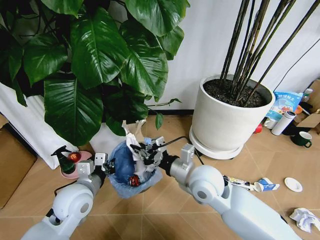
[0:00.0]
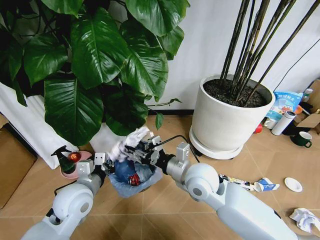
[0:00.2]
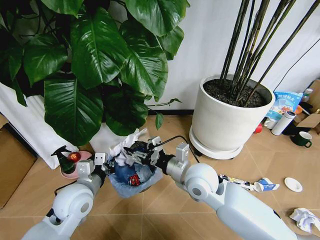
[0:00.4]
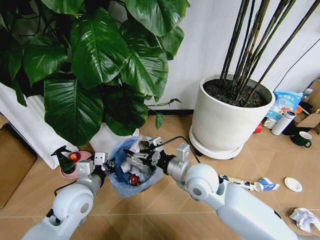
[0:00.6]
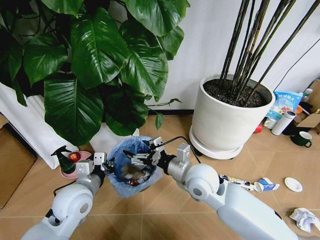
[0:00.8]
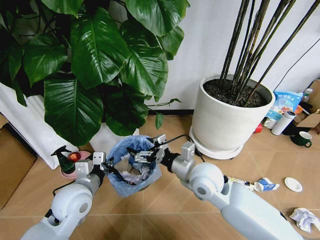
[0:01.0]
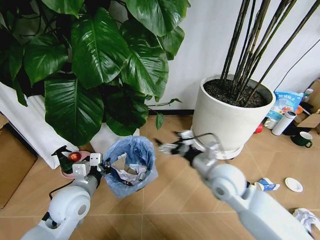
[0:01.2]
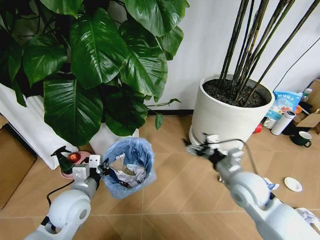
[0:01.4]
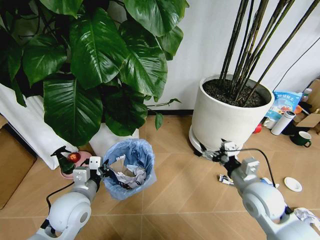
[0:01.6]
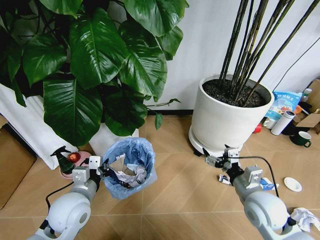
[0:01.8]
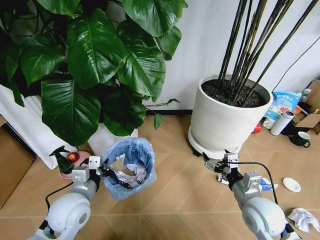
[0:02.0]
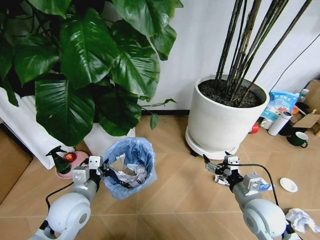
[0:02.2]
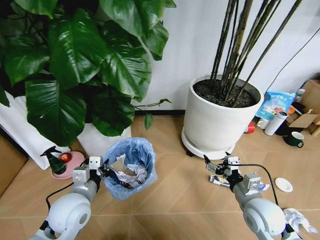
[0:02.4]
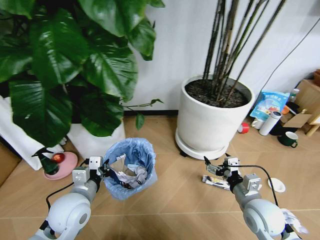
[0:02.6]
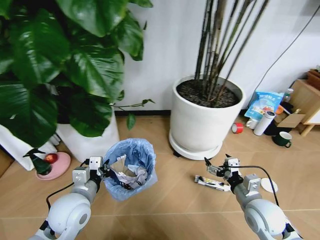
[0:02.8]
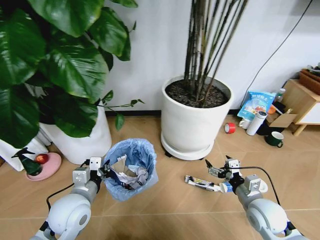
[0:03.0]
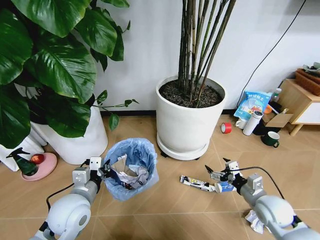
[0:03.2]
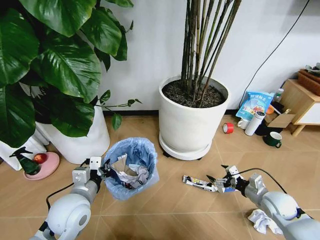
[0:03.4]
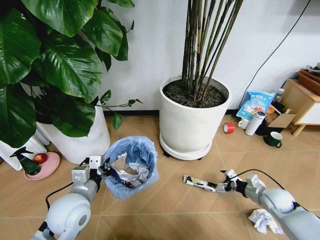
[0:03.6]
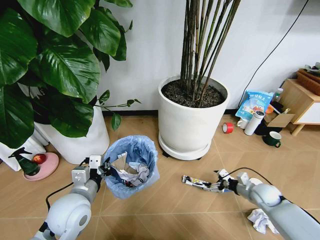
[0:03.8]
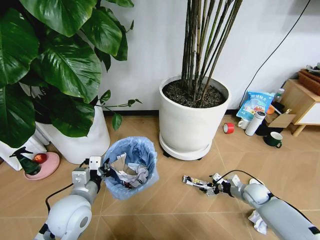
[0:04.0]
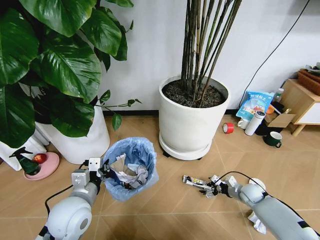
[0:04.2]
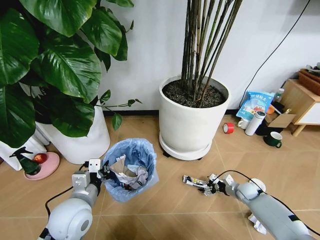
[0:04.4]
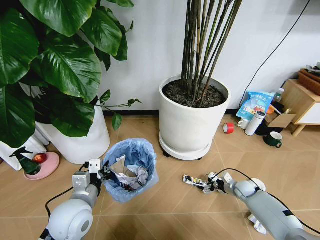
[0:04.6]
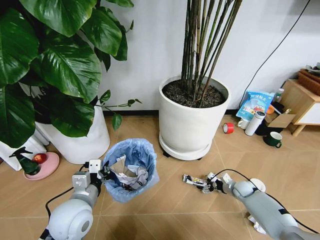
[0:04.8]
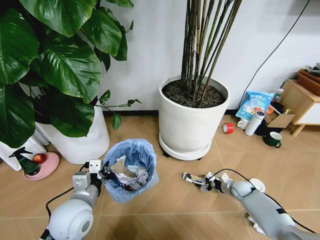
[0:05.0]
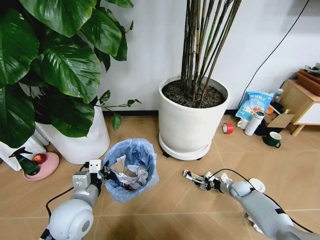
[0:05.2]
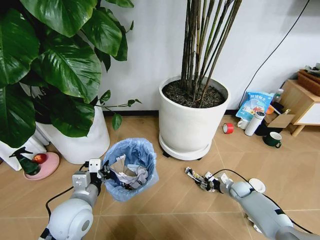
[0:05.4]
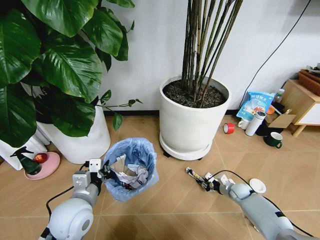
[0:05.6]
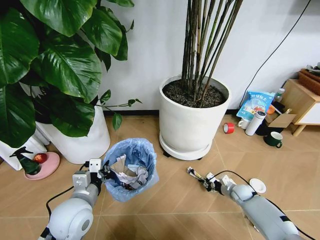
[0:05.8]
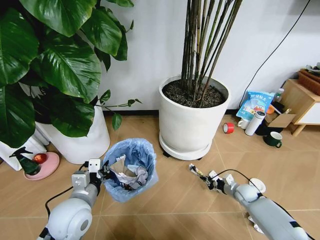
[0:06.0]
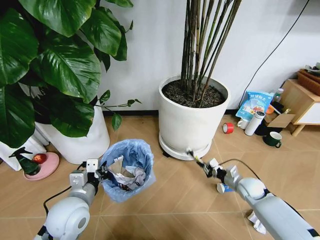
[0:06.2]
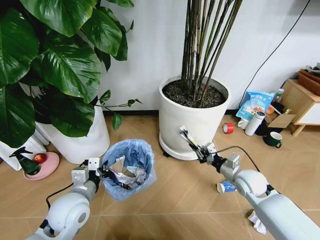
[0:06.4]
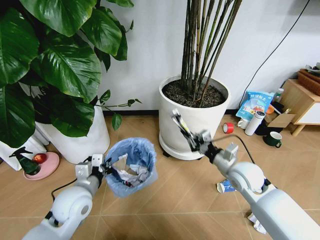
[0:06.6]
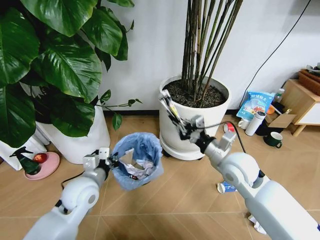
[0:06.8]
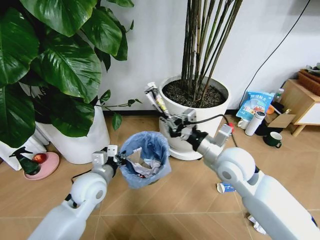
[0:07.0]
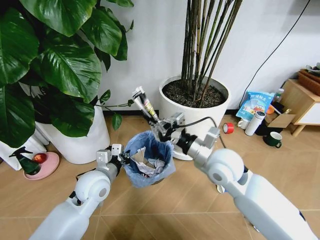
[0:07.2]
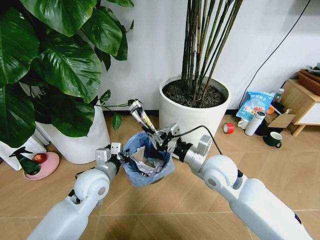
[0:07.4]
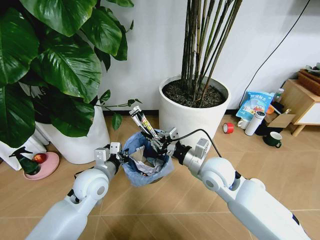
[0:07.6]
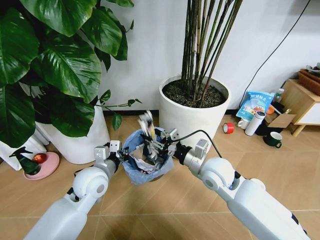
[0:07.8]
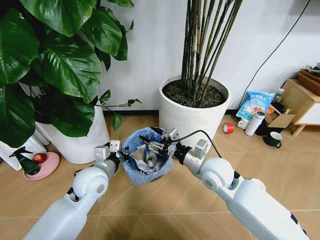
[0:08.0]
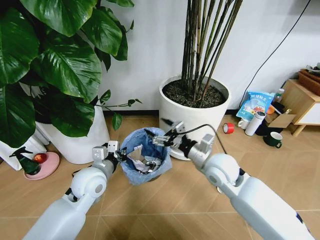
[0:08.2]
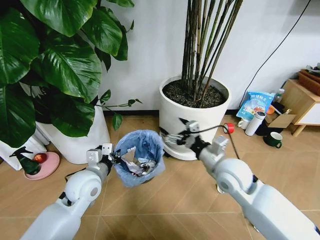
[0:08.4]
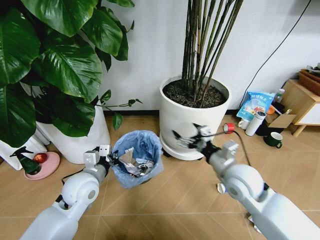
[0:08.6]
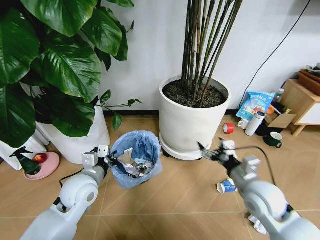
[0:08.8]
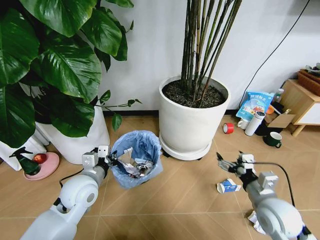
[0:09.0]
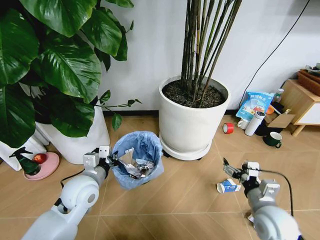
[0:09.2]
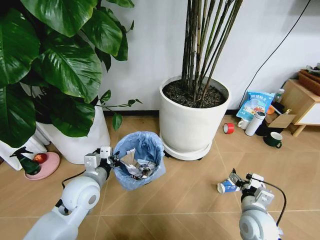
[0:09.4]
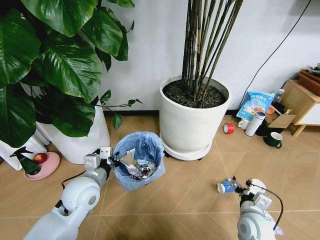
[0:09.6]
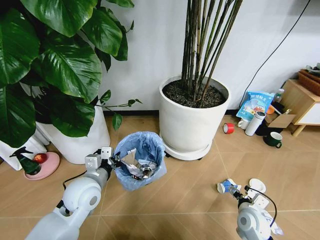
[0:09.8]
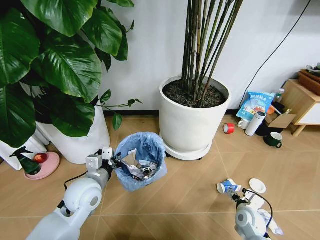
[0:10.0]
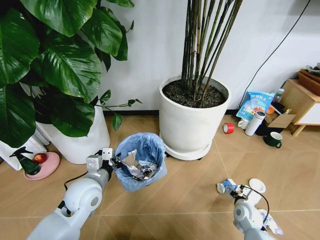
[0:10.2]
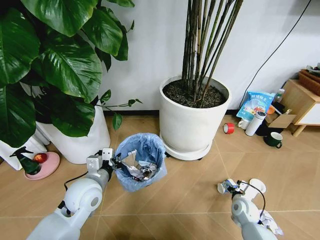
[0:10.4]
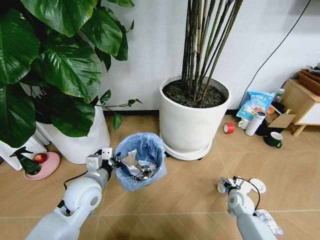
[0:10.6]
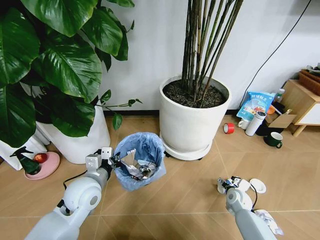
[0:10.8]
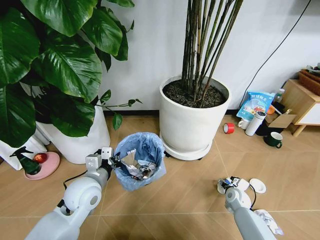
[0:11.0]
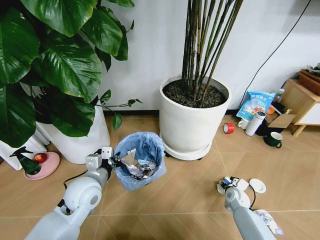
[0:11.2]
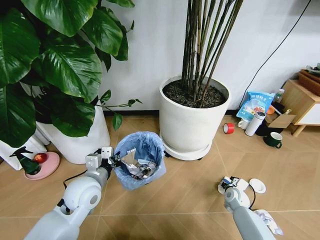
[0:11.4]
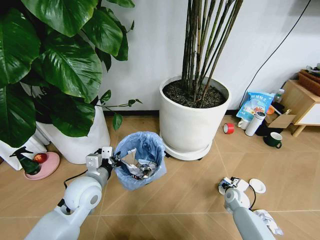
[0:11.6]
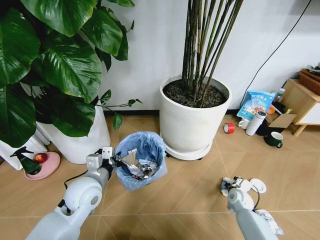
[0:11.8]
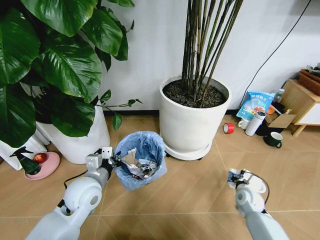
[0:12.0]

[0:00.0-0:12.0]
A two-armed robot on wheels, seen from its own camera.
Task of the whole recording: Pick up the trash bin and place the garbage on the floor into it.
0:00.0 to 0:01.6: The right gripper moves to the right, some 15 cm, and opens its fingers.
0:01.6 to 0:03.0: The right gripper shifts roughly 10 cm downward.
0:03.0 to 0:04.4: The right gripper is displaced downward, forward and to the right by some 25 cm.
0:04.4 to 0:06.0: The right gripper closes its fingers.
0:06.0 to 0:07.6: The left gripper moves forward, roughly 10 cm, while the right gripper heads upward and to the left, covering approximately 35 cm.
0:07.6 to 0:09.0: The right gripper shifts roughly 20 cm to the right and backward, and opens its fingers.
0:09.0 to 0:10.4: The right gripper moves downward, approximately 20 cm.
0:10.4 to 0:12.0: The right gripper ends up about 5 cm from where it was, and closes up.

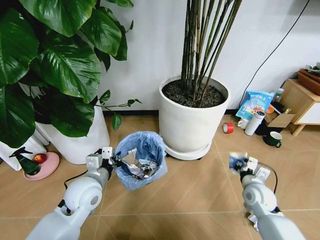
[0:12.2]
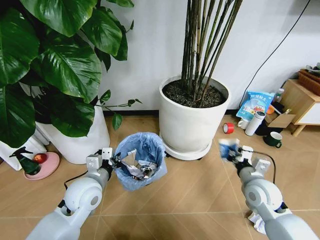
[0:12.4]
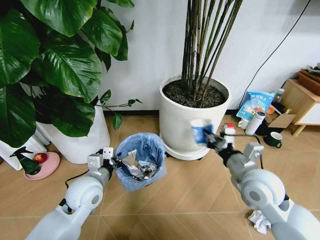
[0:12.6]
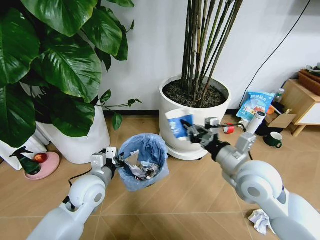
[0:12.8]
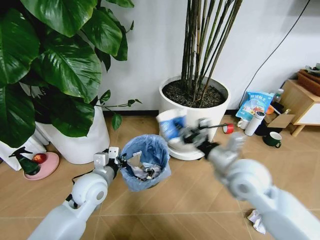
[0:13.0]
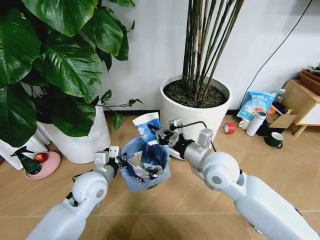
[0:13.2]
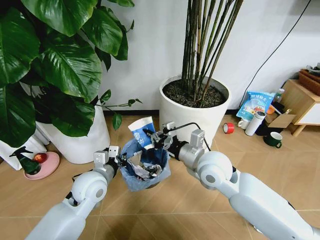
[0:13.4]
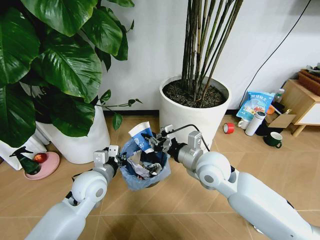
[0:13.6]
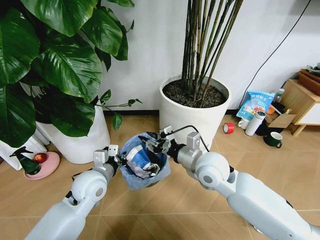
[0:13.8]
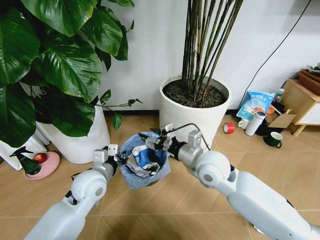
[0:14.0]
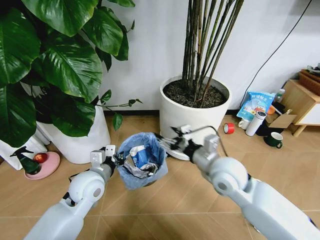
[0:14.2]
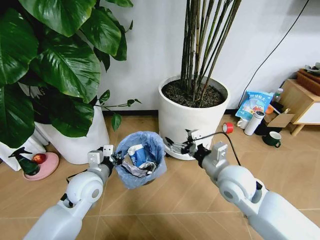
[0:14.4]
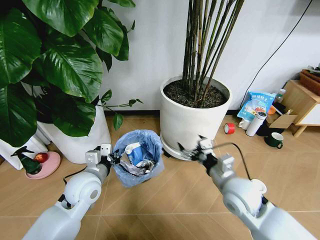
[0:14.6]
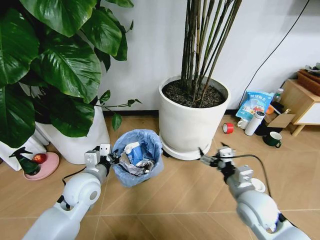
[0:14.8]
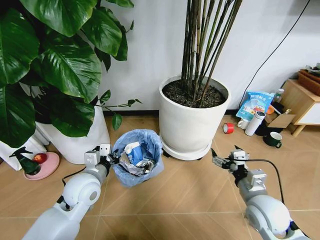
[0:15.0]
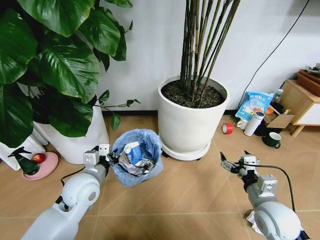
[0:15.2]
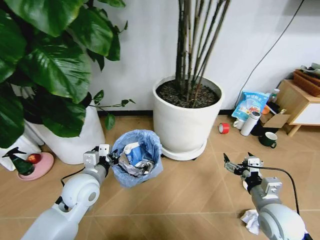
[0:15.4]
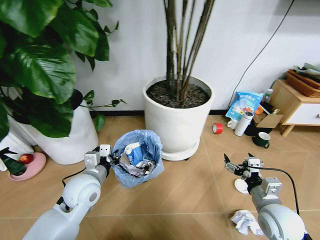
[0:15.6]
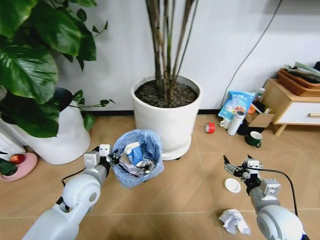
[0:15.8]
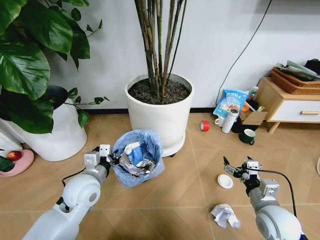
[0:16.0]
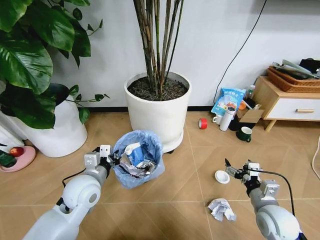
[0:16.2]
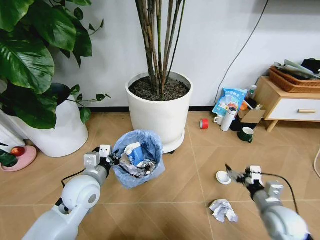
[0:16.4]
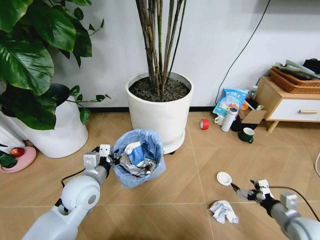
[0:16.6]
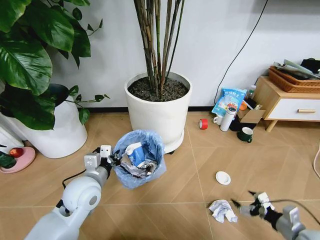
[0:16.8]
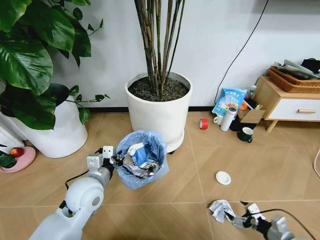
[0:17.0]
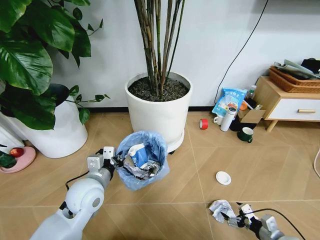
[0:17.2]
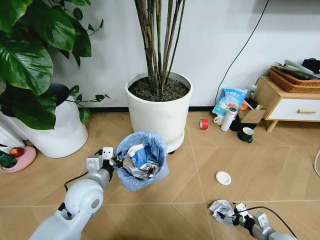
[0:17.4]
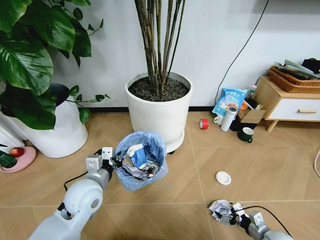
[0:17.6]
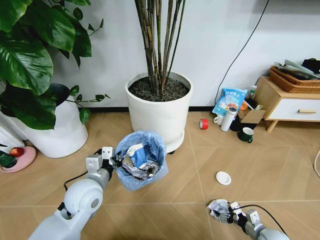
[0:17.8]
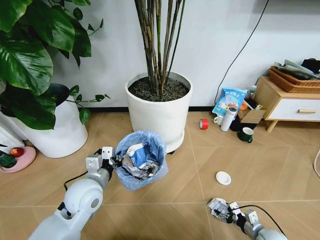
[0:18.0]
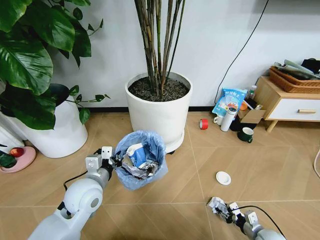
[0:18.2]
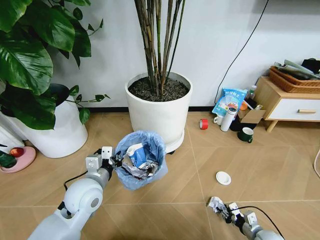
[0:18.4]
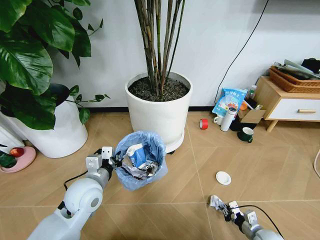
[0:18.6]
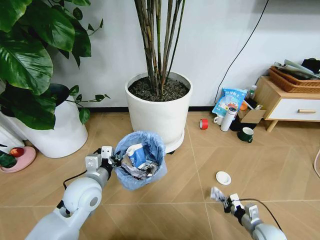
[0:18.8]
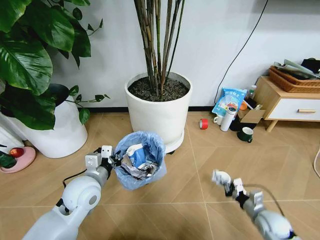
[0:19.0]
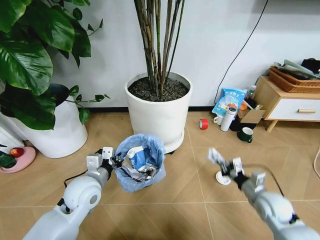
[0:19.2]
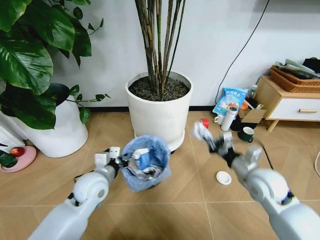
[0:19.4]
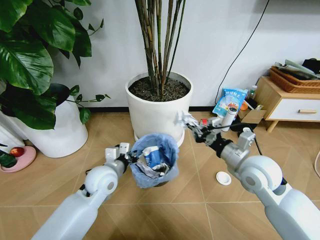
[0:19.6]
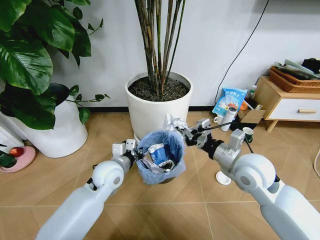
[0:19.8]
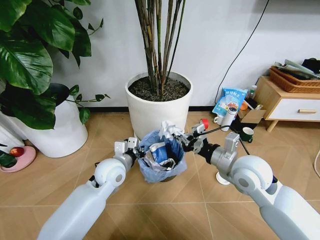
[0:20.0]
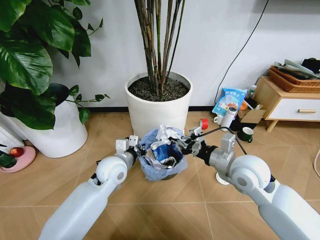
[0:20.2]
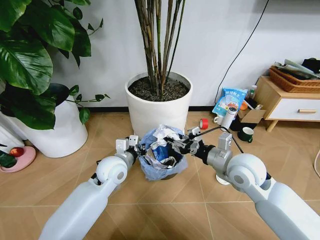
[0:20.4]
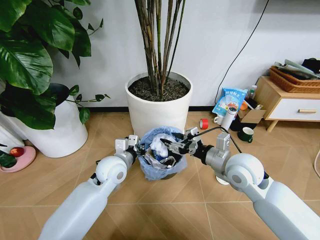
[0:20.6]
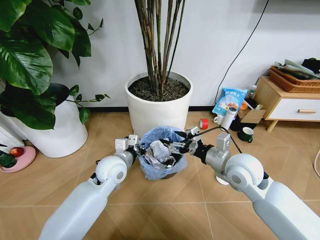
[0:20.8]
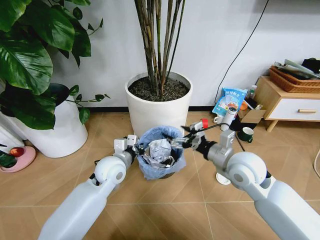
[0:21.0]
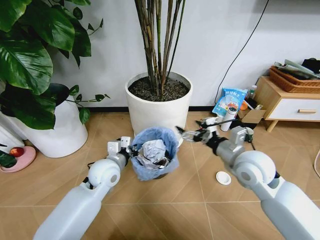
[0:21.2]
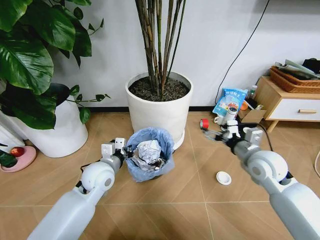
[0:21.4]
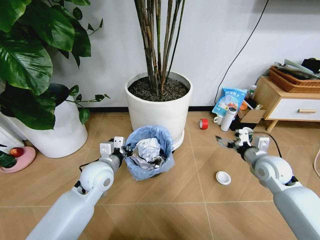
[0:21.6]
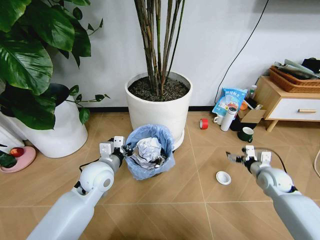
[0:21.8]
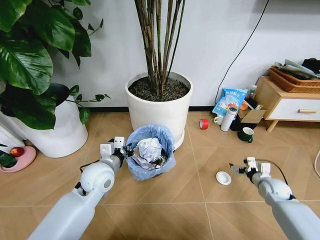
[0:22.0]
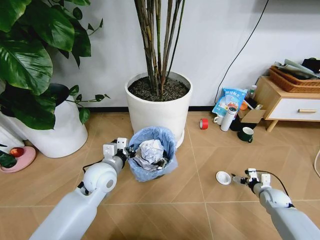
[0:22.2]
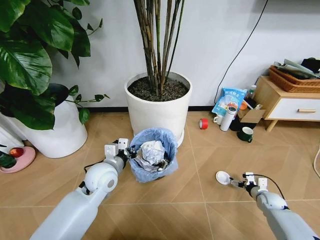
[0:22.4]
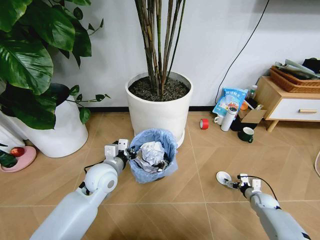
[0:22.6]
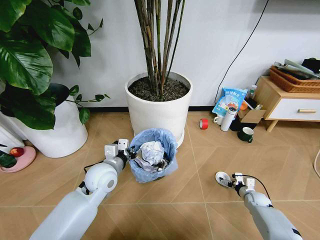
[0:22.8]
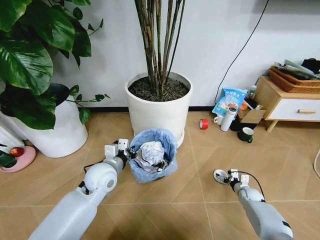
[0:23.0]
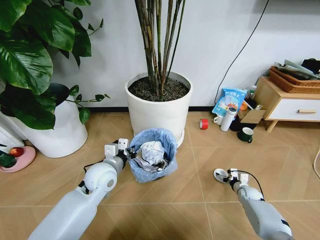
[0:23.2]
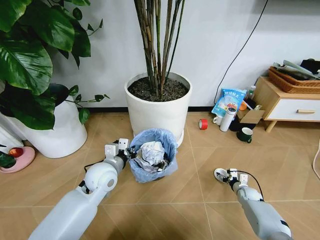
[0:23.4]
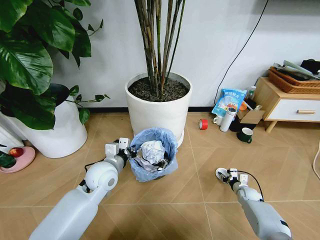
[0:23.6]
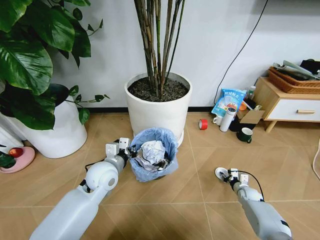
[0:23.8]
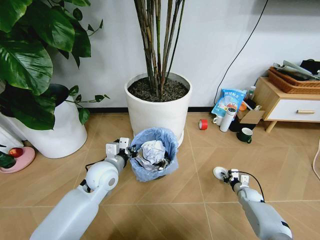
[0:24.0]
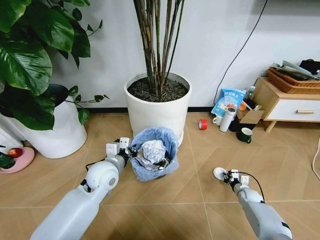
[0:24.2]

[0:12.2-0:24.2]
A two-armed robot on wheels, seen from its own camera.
Task of the whole recording: Pick up the trash bin and place the garbage on the floor into it.
0:12.2 to 0:13.8: The right gripper is displaced to the left and upward by roughly 25 cm.
0:13.8 to 0:15.2: The right gripper shifts some 20 cm to the right, backward and downward, and opens.
0:15.2 to 0:16.6: The right gripper goes approximately 15 cm to the right and downward.
0:16.6 to 0:18.2: The right gripper travels downward by some 15 cm, and closes.
0:18.2 to 0:19.8: The left gripper goes roughly 5 cm forward, while the right gripper shifts some 40 cm upward and to the left, and closes up.
0:19.8 to 0:21.2: The right gripper opens its fingers.
0:21.2 to 0:22.6: The right gripper is displaced downward and to the right by roughly 40 cm.
0:22.6 to 0:24.2: The right gripper changes place by roughly 5 cm, and closes.
